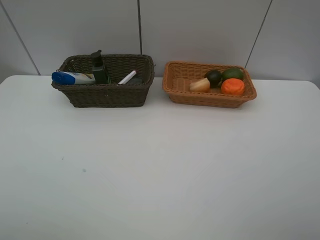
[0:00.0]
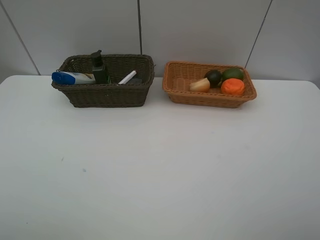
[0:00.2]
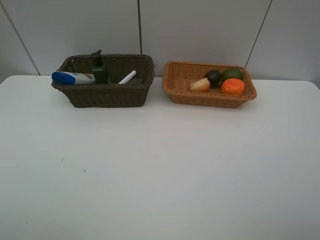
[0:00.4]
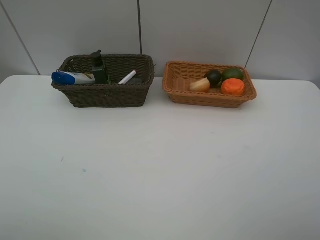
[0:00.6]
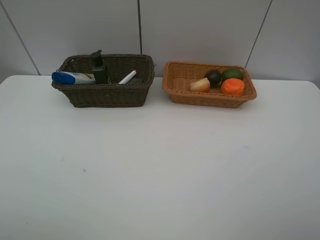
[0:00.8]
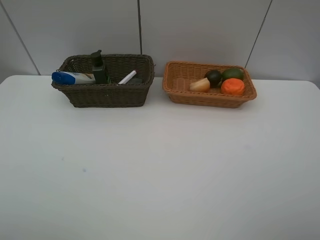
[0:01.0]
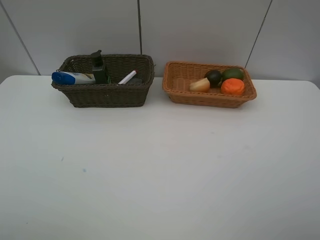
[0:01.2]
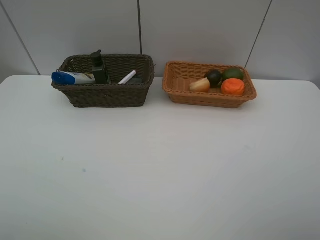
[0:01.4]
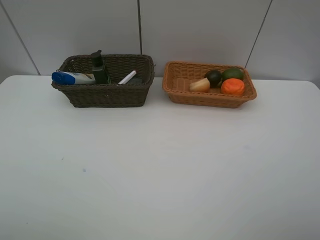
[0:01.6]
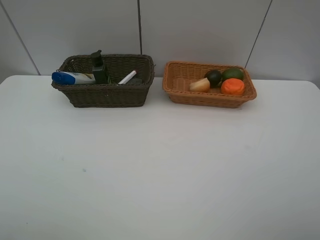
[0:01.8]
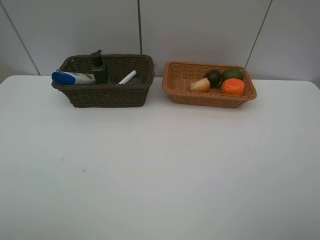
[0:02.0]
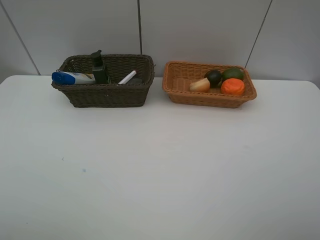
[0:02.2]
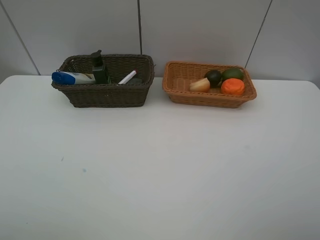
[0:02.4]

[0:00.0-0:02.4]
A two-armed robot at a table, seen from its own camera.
Task of the whole recording: Place multiple objects separately in different baskets.
0:01.2 to 0:02.4: The two grippers keep their place.
